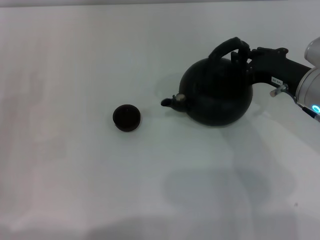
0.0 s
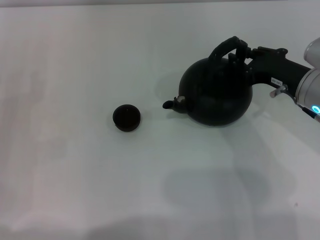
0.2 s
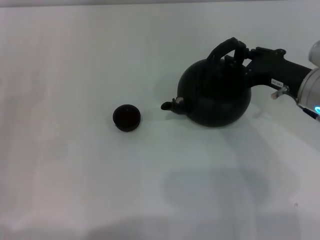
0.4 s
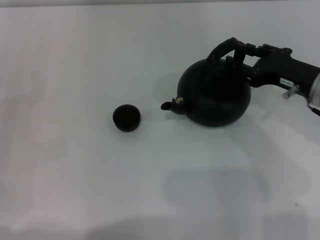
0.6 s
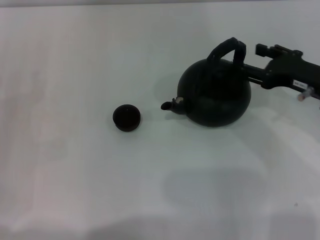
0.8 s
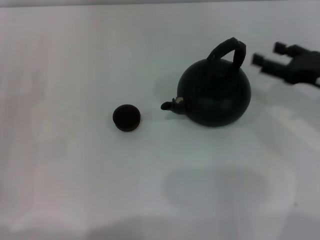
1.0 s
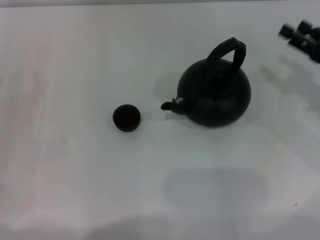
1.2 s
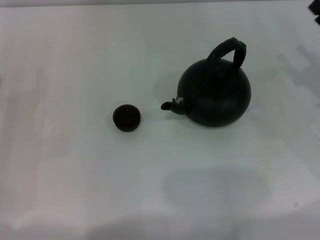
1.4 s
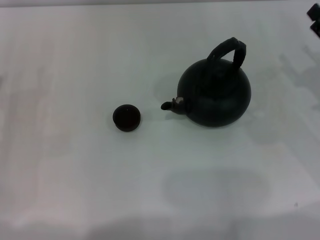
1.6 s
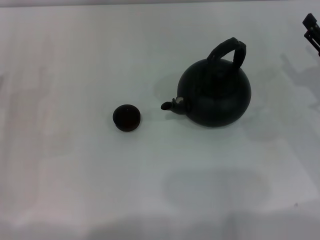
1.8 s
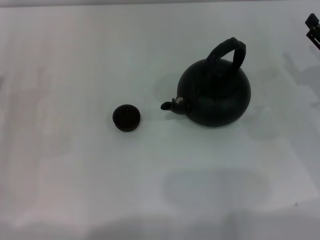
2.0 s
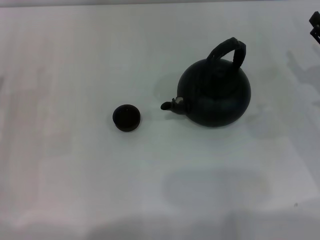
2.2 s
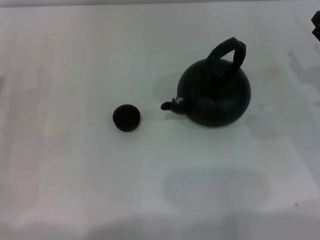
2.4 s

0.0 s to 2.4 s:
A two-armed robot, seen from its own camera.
Task of the whole recording: Grasp the handle of the teapot with one hand and pour tea into the teacup.
0.0 to 1.2 s: The right gripper goes approximately 10 cm to the right, and opens up.

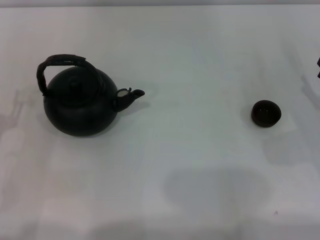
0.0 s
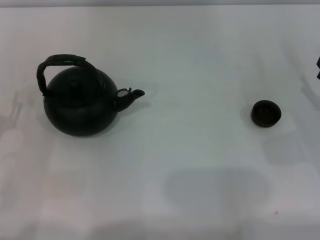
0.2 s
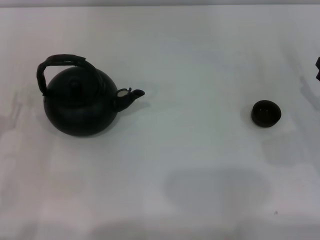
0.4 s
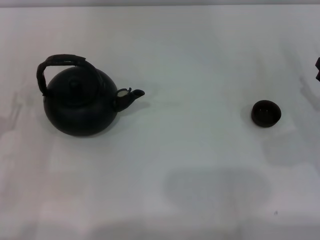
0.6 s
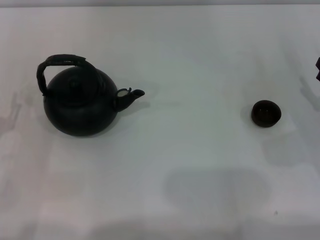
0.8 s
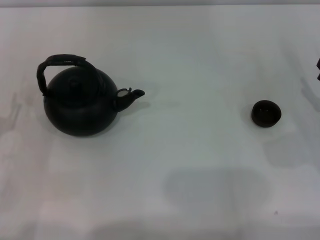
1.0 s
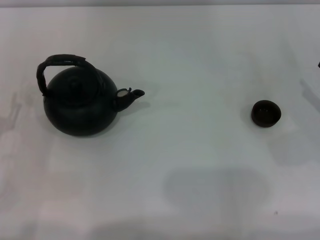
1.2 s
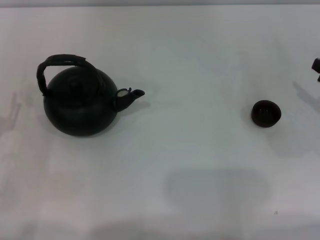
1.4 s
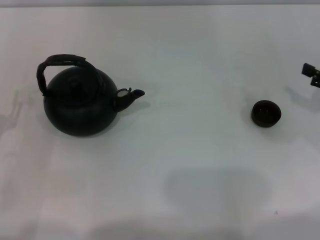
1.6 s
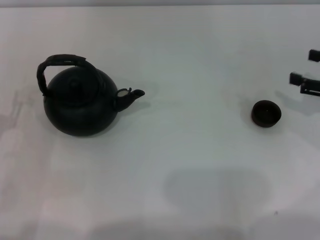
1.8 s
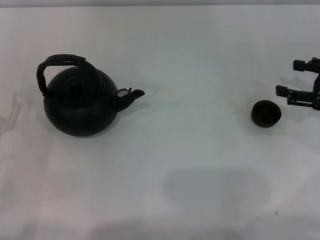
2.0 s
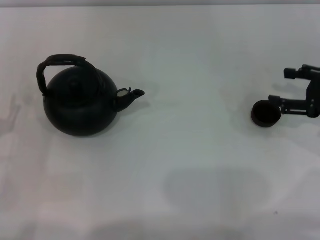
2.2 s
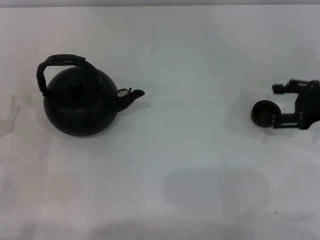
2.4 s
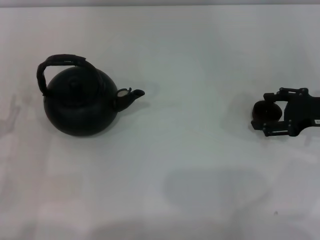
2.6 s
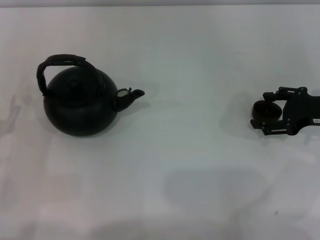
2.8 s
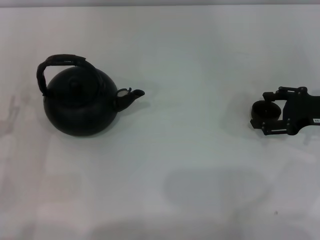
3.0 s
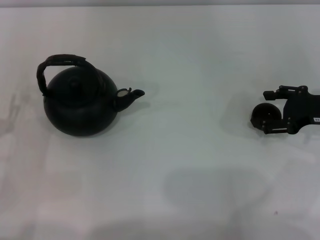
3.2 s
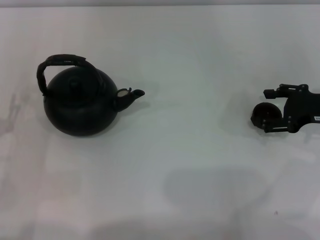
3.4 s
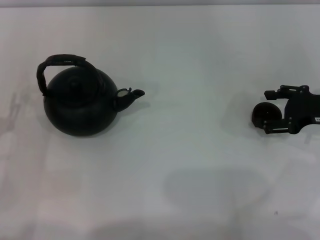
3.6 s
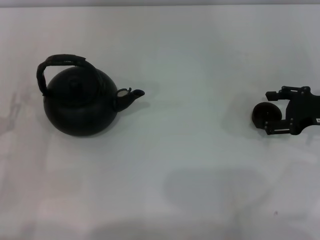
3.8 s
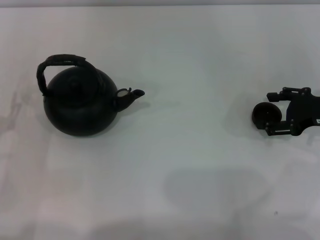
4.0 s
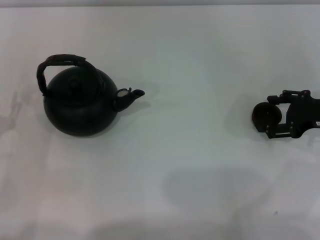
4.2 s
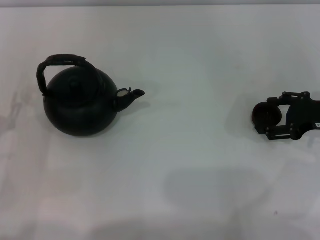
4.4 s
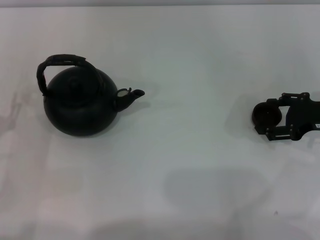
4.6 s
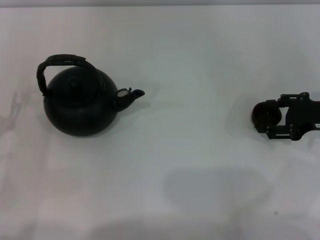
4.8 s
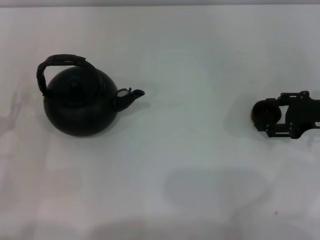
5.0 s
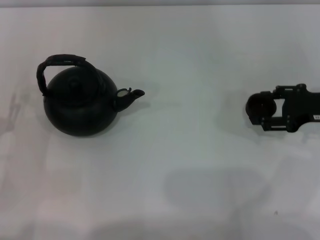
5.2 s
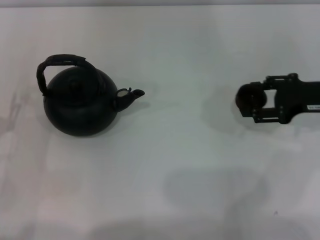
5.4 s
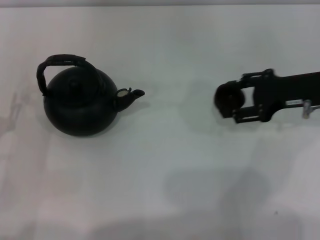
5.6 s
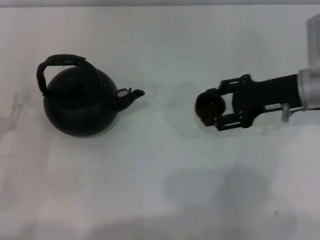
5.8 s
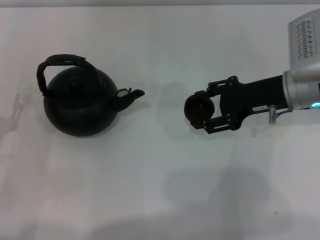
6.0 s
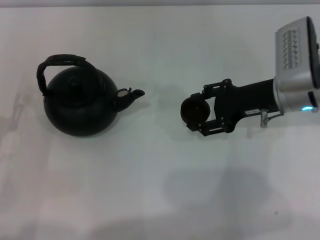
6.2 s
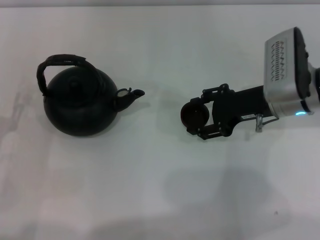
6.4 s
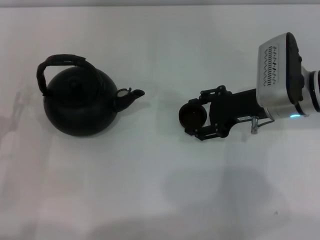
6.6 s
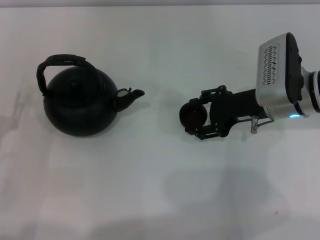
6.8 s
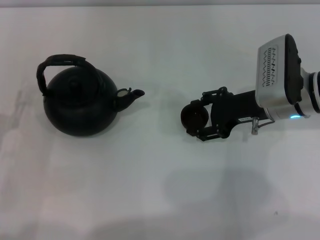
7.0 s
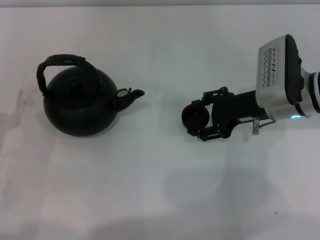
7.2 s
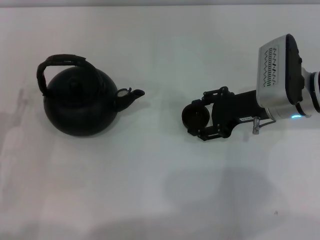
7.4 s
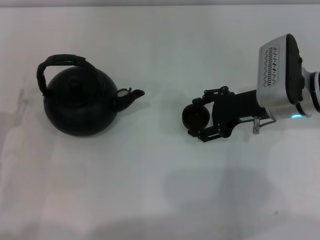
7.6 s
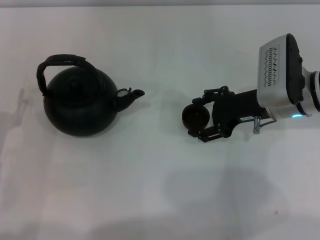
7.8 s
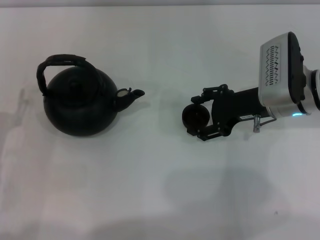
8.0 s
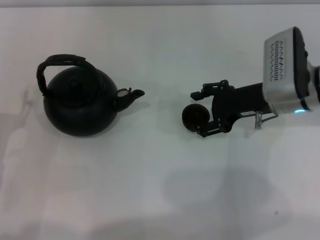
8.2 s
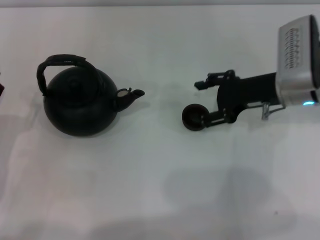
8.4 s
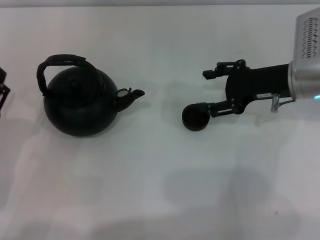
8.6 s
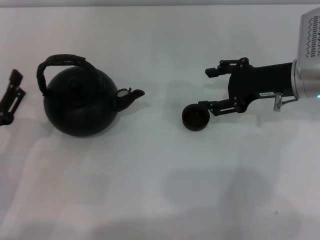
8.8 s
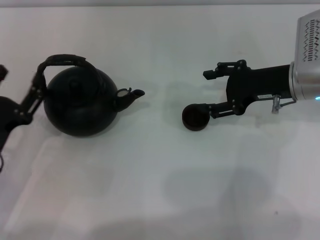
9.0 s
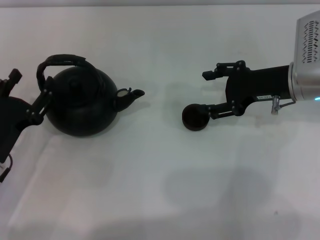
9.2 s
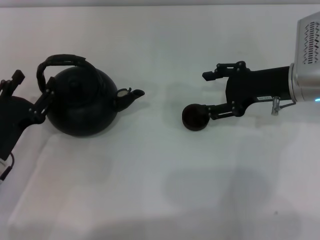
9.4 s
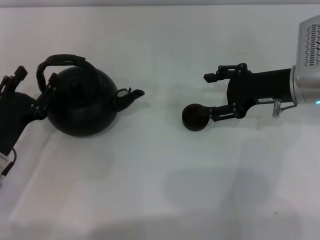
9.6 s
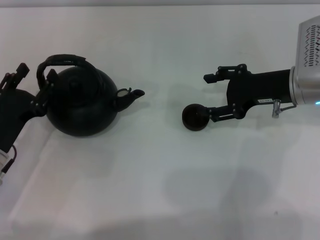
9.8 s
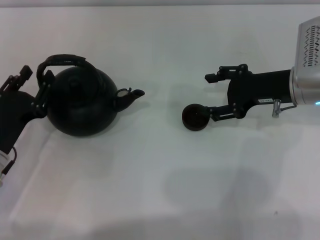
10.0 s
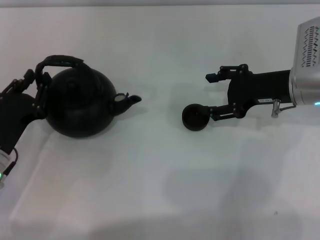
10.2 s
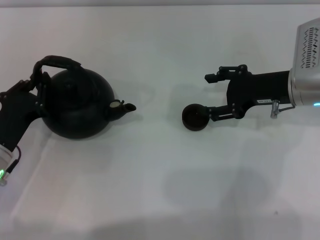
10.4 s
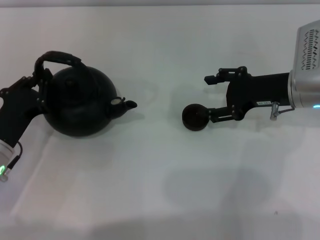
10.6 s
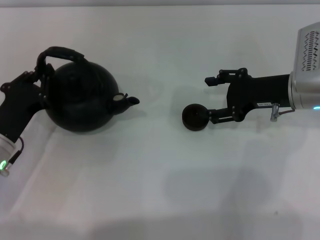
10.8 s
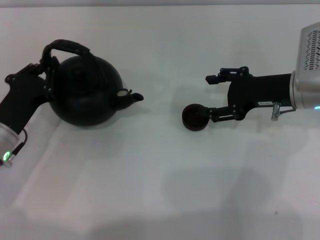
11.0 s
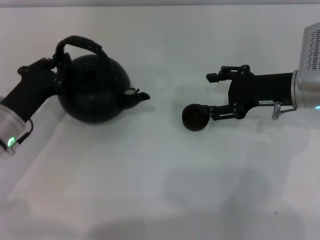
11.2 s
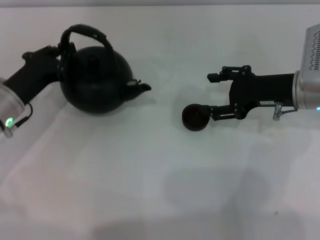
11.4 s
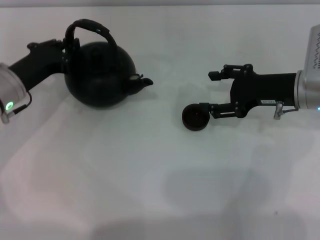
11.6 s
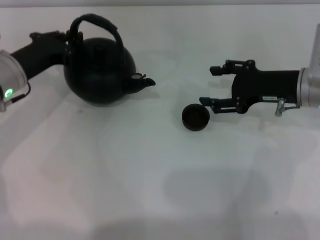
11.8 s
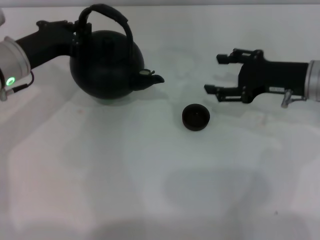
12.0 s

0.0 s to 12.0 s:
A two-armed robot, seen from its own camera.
Task of the whole recording: Grasp the handle of the teapot with one hand and pour tea into the teacup.
Step, 0.0 to 5.2 s: Pick up the teacup with the right gripper.
Step, 5.4 to 8.2 s: Place the teacup in the center of view with the right gripper.
1.6 to 3.0 s: The right gripper goes roughly 5 cm to the left.
3.0 to 4.4 s: Neither gripper changes place.
4.4 to 6.0 s: The right gripper is displaced to the left by approximately 10 cm.
6.0 to 9.0 s: The grippers stay close to where they were, moving slightly.
9.0 to 10.4 s: The left gripper closes up.
10.4 to 12.0 s: The left gripper is displaced forward and upward by approximately 15 cm, and closes.

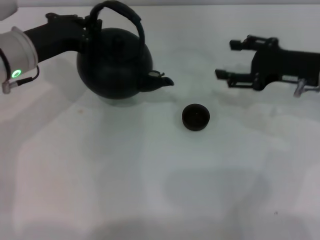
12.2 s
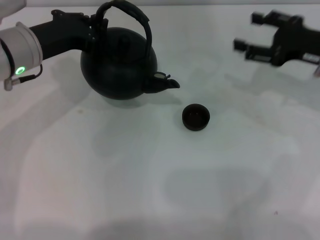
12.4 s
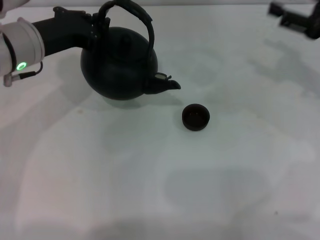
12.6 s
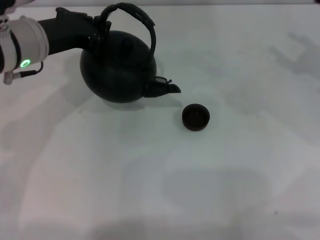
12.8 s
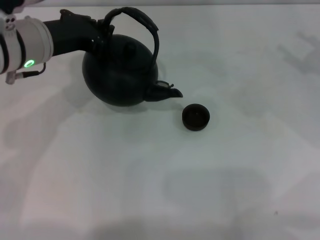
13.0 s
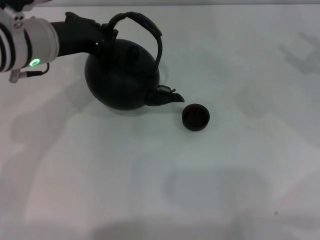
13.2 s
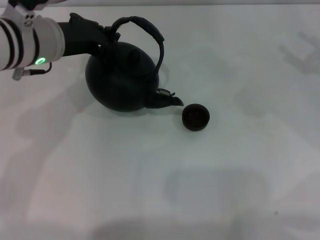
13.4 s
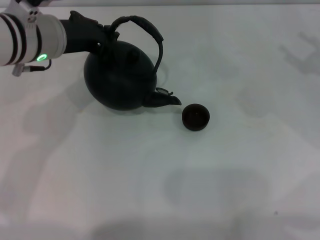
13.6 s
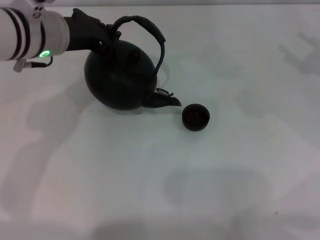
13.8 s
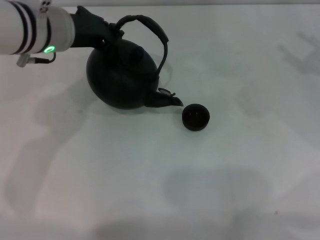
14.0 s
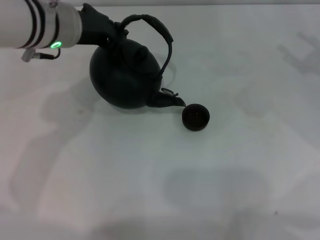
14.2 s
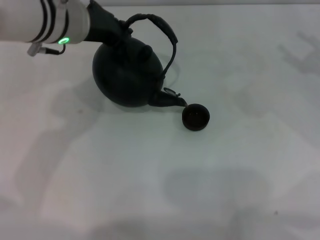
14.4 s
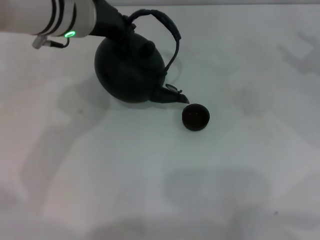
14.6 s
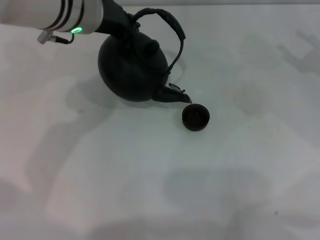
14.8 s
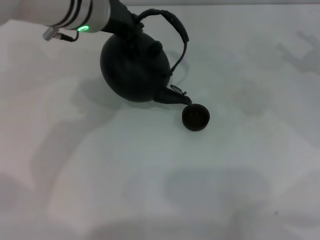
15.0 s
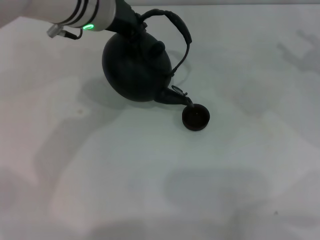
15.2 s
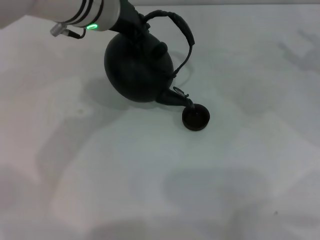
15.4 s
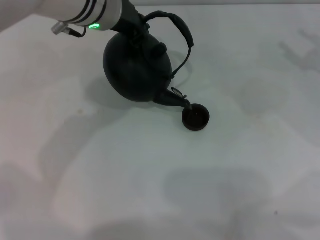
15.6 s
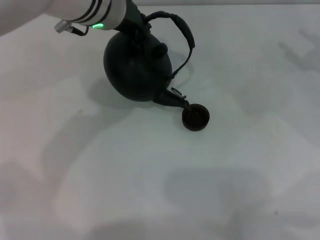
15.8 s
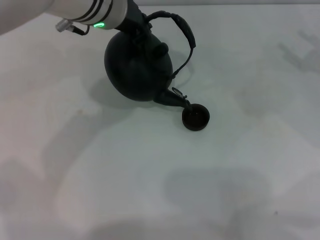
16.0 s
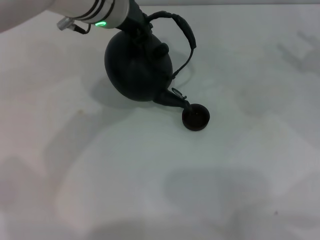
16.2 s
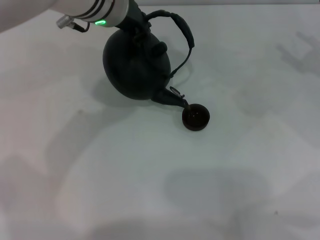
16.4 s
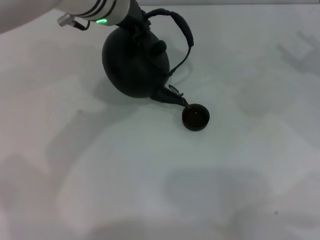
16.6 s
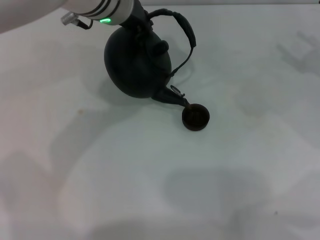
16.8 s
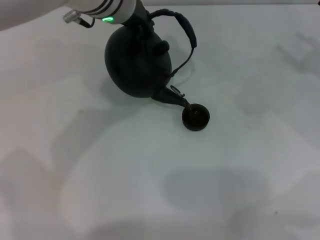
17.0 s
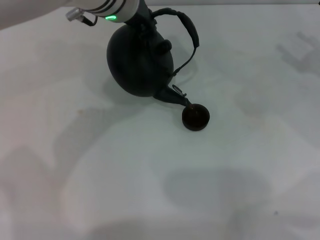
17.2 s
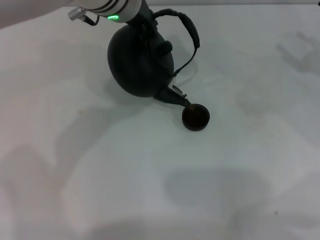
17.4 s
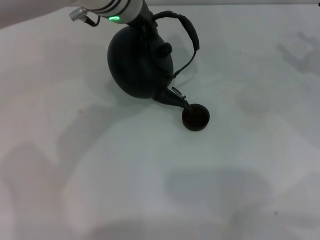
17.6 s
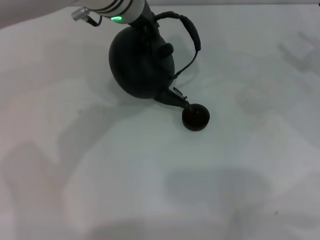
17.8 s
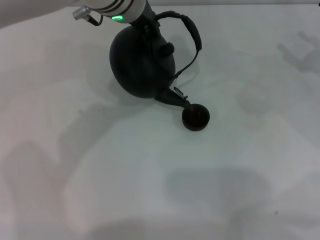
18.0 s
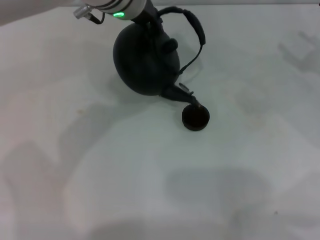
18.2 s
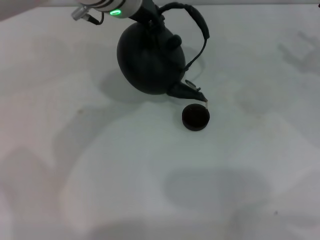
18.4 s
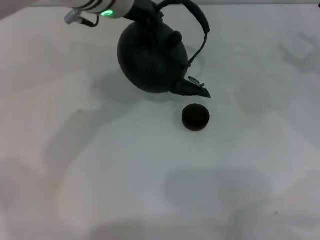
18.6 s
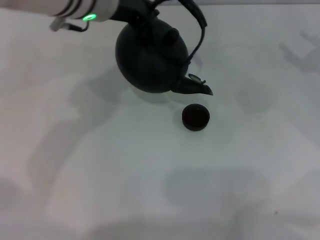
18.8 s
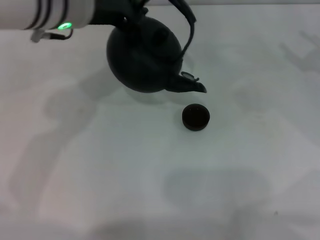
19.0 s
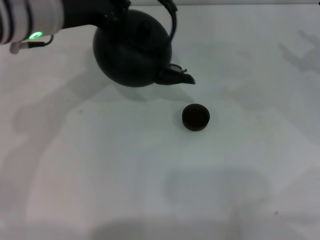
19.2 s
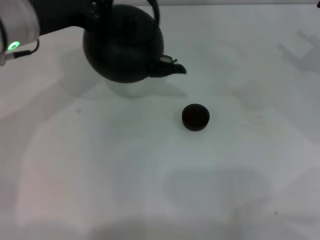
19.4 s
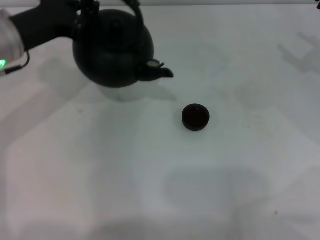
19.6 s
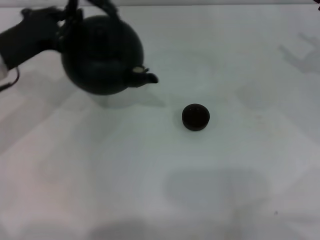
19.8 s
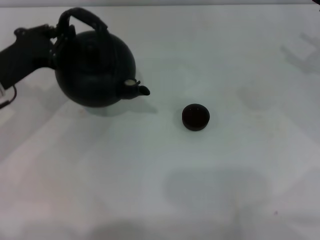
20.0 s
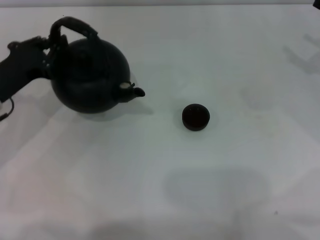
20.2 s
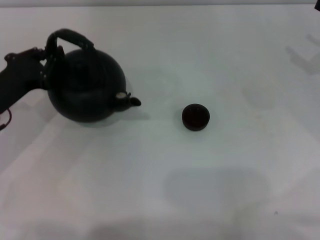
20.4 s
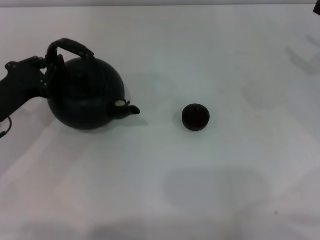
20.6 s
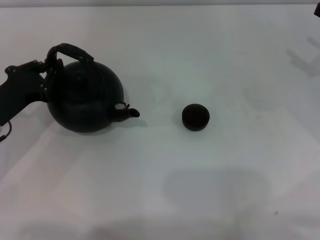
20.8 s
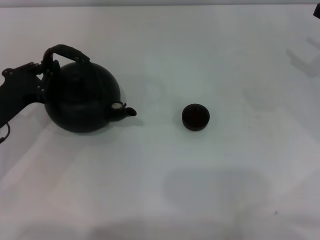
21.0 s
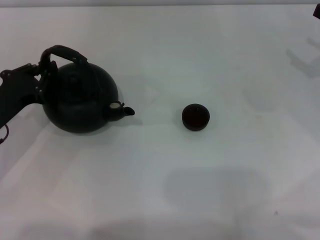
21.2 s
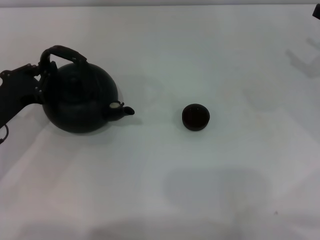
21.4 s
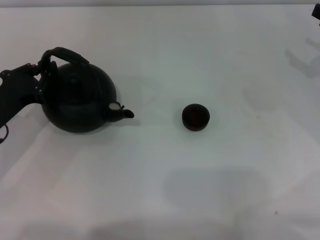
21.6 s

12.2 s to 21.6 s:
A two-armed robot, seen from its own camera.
Task of the whole recording: Grasp the handle of the teapot with one hand and pour tea into the teacup.
Step, 12.8 to 19.2 s: Pour tea into the teacup with the left gripper.
12.2 to 13.8 s: The right gripper heads to the right, covering approximately 10 cm. Meanwhile the left gripper is displaced to the right by approximately 5 cm.
13.8 to 15.4 s: The left gripper goes roughly 5 cm to the right.
15.4 to 18.4 s: The grippers make only small movements.
18.4 to 20.0 s: The left gripper heads to the left and downward, covering about 25 cm.
20.0 to 21.6 s: The left gripper moves downward, some 5 cm.
